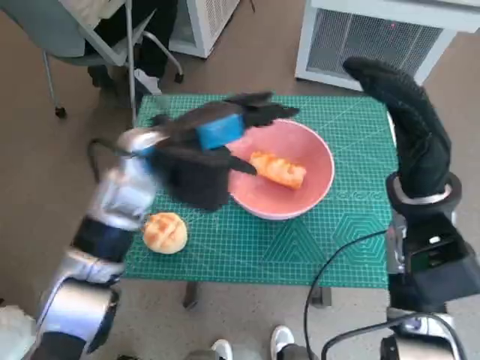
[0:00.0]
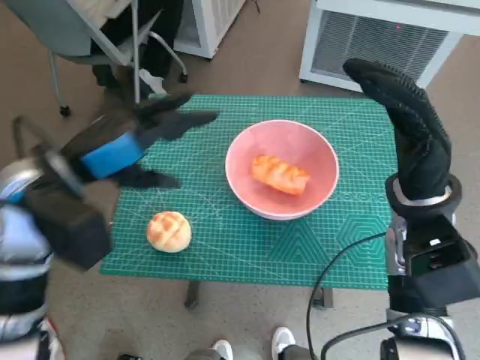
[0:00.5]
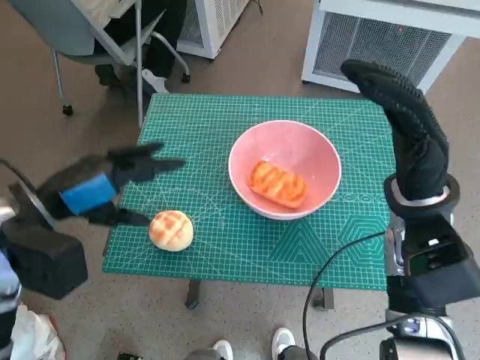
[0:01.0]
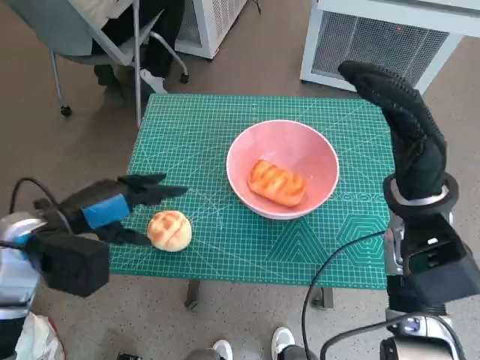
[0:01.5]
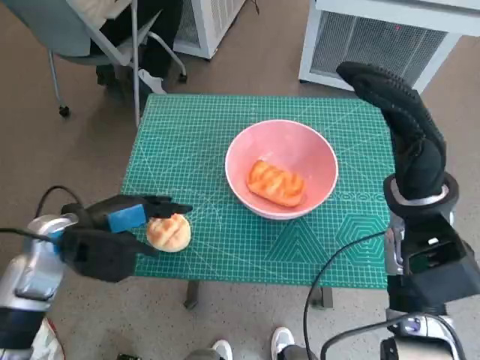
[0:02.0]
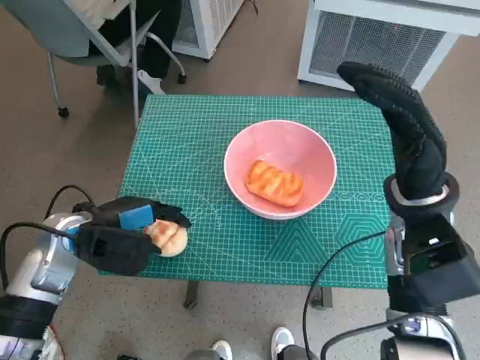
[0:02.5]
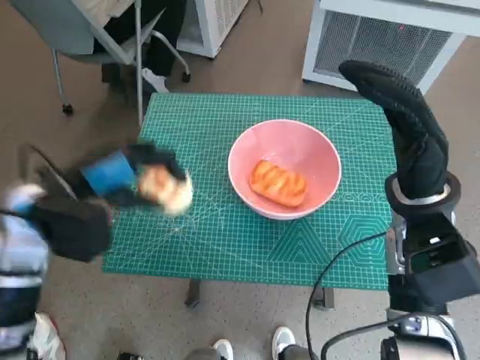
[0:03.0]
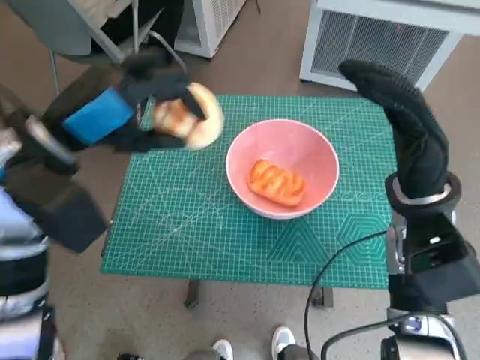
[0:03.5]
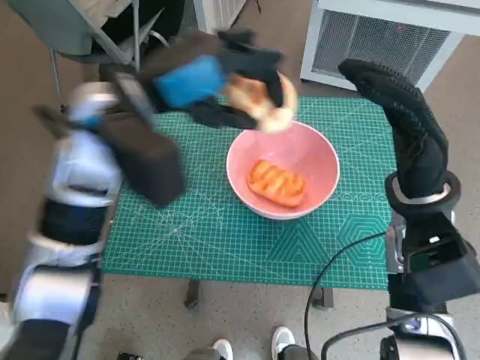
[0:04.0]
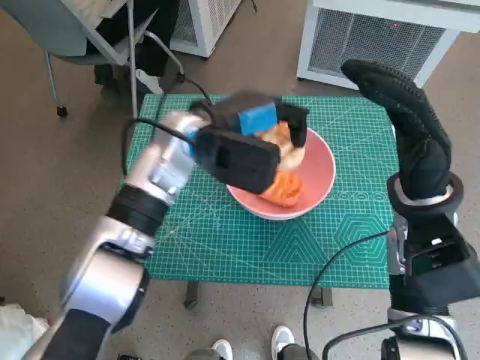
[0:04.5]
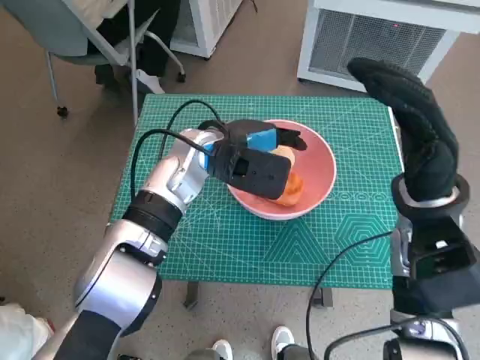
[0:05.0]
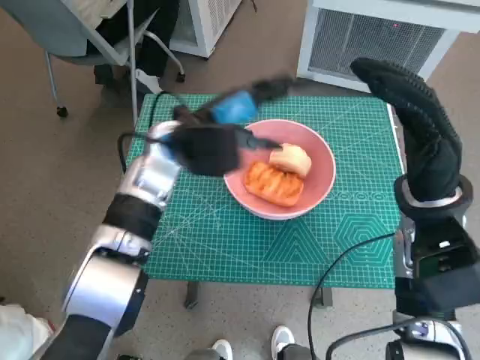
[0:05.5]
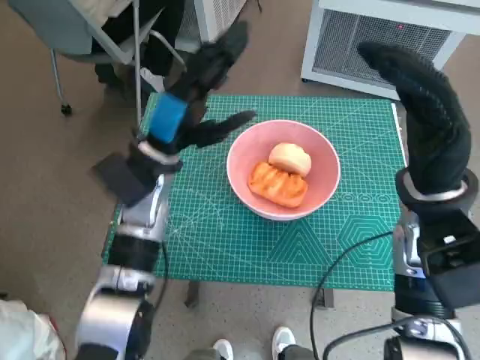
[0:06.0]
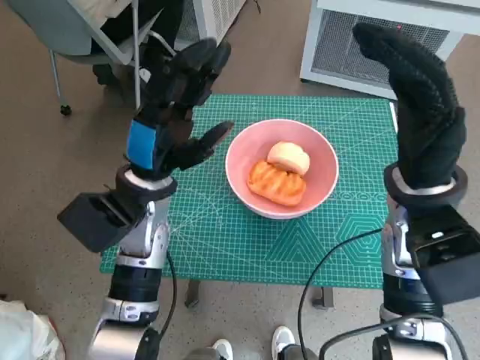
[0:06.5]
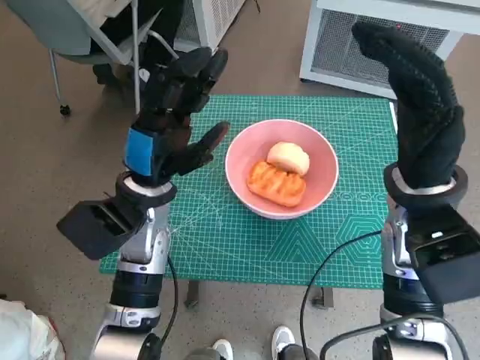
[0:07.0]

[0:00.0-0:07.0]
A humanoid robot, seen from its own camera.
Task of the whole recording: Push the bowl to the center of the table and put the bread into the bowl.
Step, 0:00.0 to 0:02.5: Grasp the round bread with left hand.
Step, 0:03.0 to 0:05.0: Place the round bread in pink bowl with left hand.
0:00.0 to 0:02.0: The left hand goes some 15 cm to the left, backward and downward.
0:02.0 to 0:03.5: The left hand moves upward, roughly 15 cm.
0:03.5 to 0:05.0: The left hand moves to the right, forward and downward, some 20 cm.
0:05.0 to 0:07.0: The left hand heads to the left and backward, covering some 10 cm.

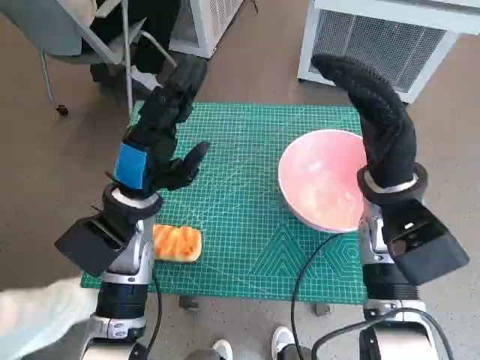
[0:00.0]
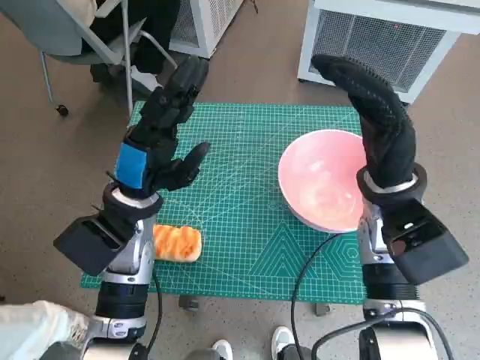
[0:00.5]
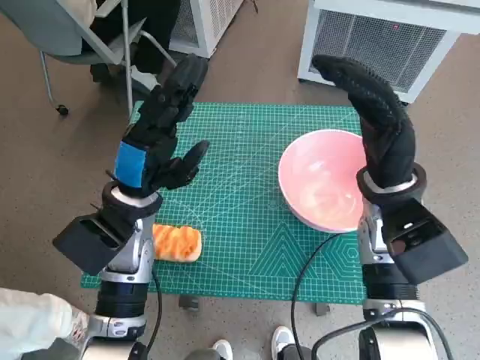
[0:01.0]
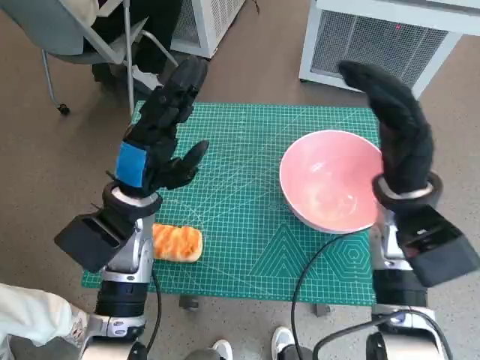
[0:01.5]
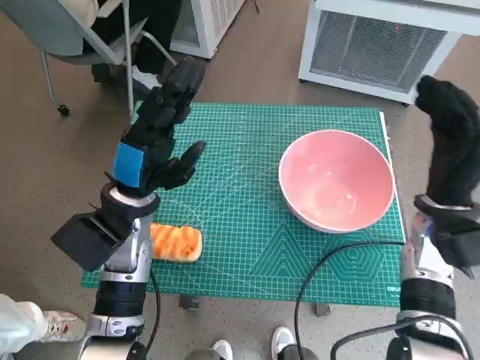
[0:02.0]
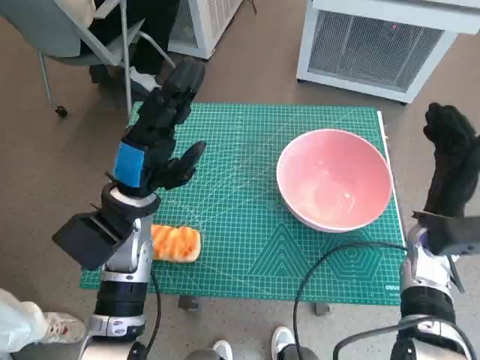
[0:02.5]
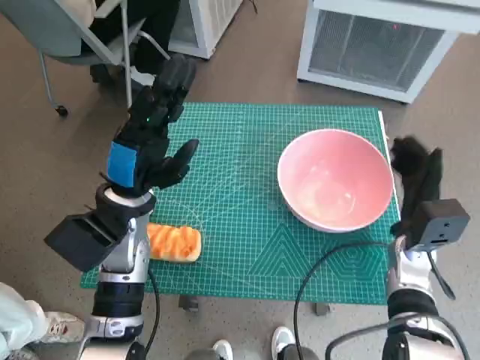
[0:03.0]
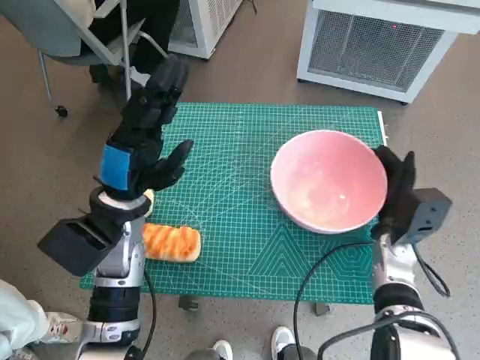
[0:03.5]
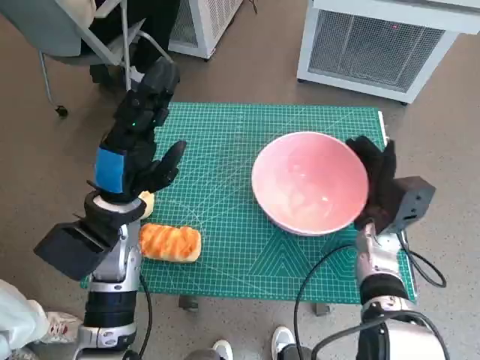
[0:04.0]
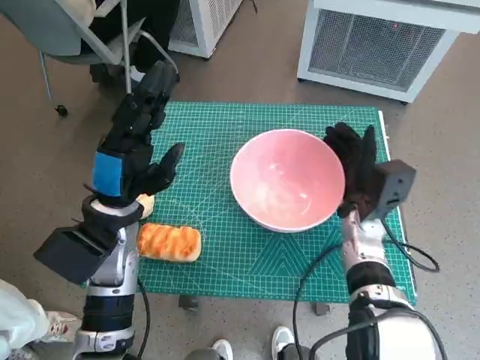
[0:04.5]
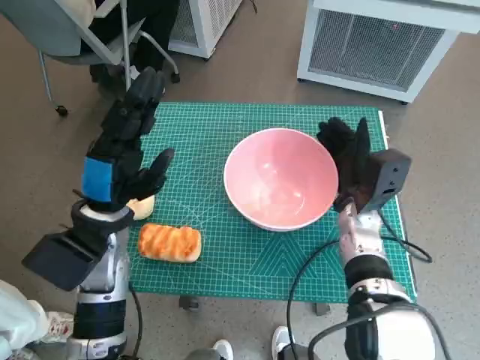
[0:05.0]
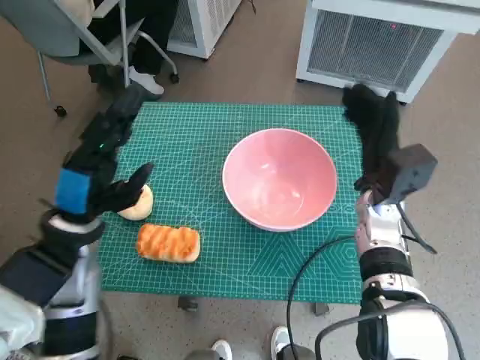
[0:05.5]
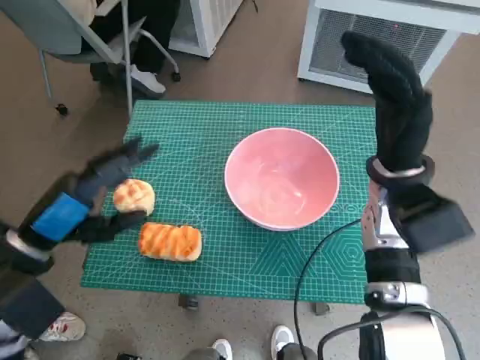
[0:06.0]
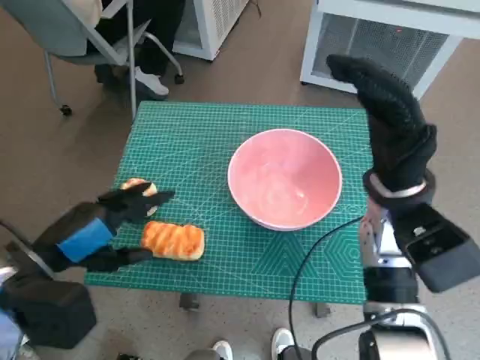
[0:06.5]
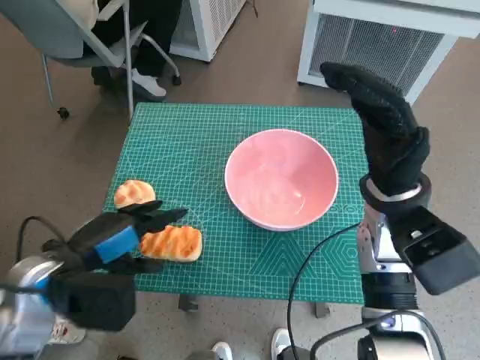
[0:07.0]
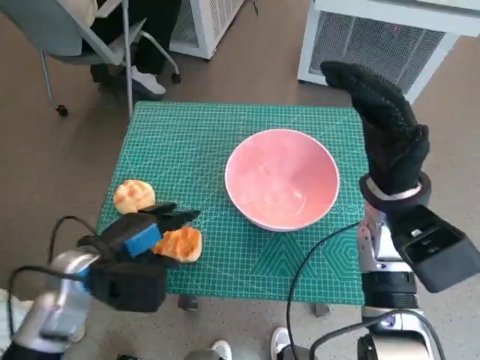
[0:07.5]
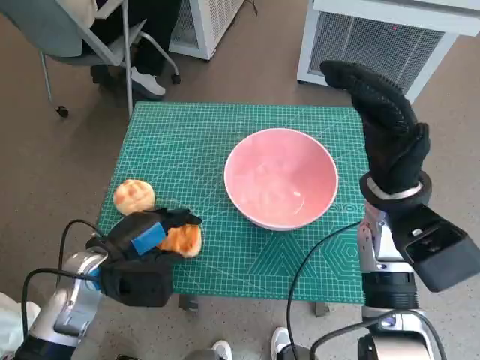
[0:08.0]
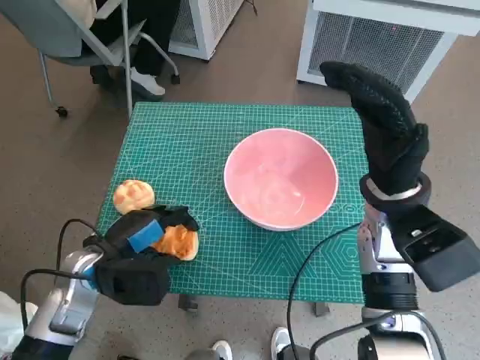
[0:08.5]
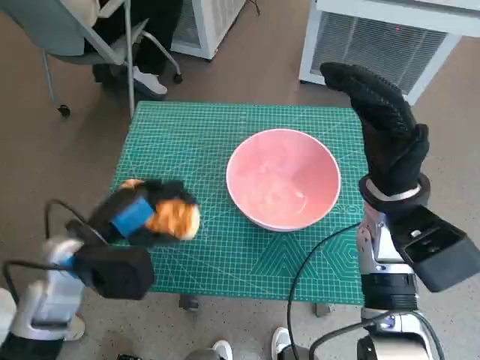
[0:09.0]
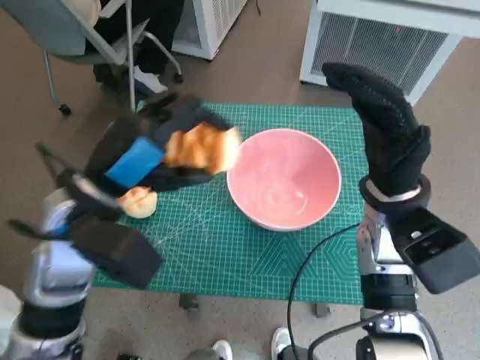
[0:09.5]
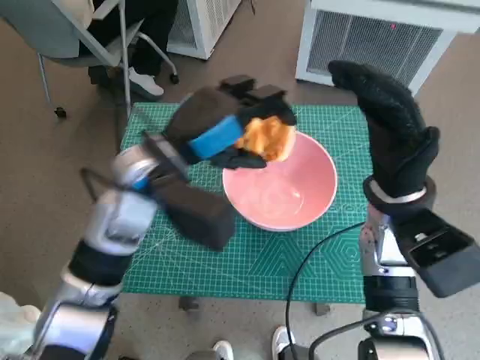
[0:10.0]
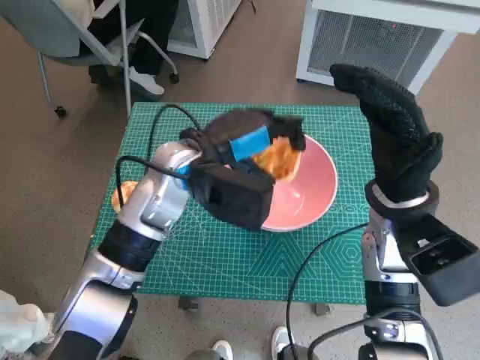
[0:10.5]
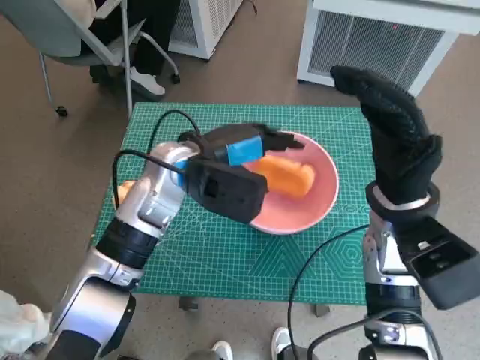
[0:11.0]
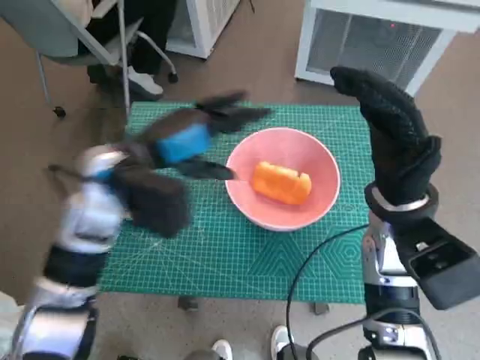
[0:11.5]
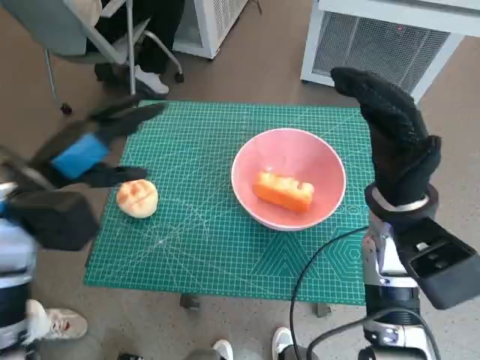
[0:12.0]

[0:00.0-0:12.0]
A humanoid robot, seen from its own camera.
Task of the whole recording: Push the bowl to the center of the table and put the bread into the bowl.
Step, 0:00.0 to 0:05.0: Move the pink bowl to the center of table with right hand.
Step, 0:05.5 to 0:08.0: Grasp the long bread with left hand.
Step, 0:08.5 to 0:11.0: Place the long bread in pink bowl with left hand.
0:02.0 to 0:04.0: The right hand moves downward, some 10 cm.
0:04.0 to 0:06.0: The right hand shifts about 15 cm upward. Meanwhile the left hand is displaced to the left and backward by some 10 cm.
0:06.0 to 0:08.0: The left hand travels downward by roughly 10 cm.
0:08.0 to 0:10.0: The left hand moves upward, to the right and forward, approximately 20 cm.
0:10.0 to 0:12.0: The left hand shifts about 15 cm to the left.

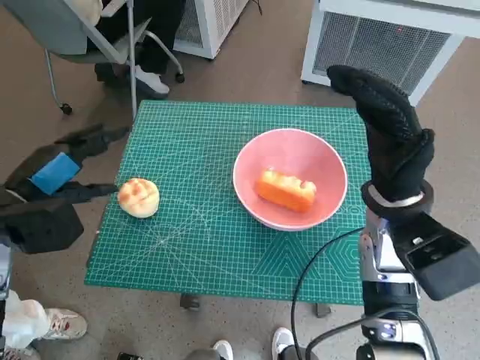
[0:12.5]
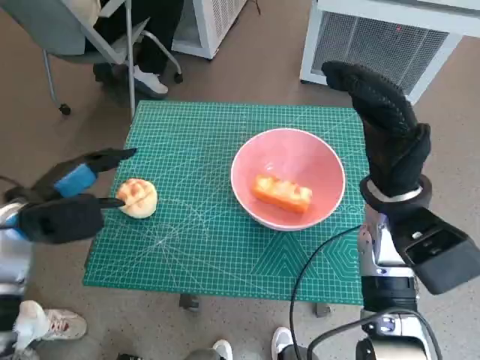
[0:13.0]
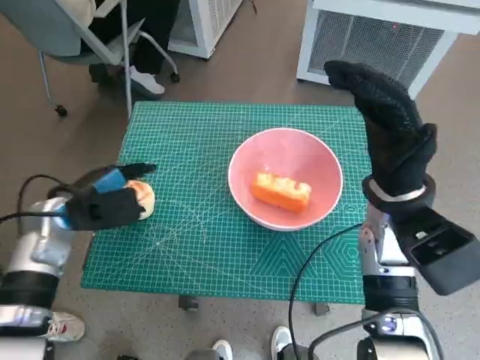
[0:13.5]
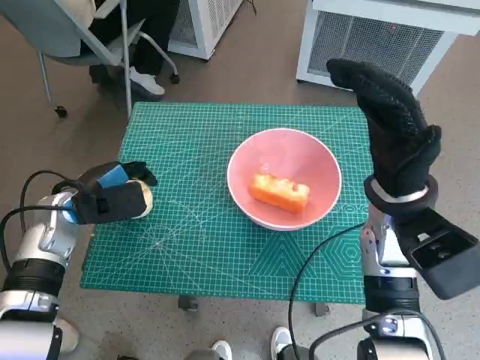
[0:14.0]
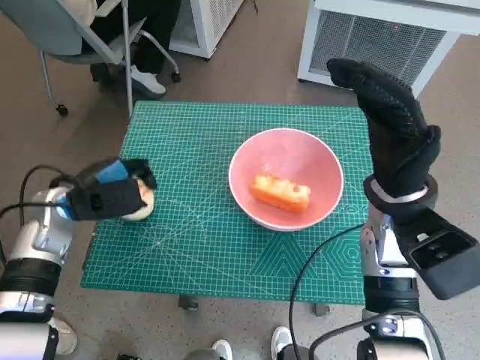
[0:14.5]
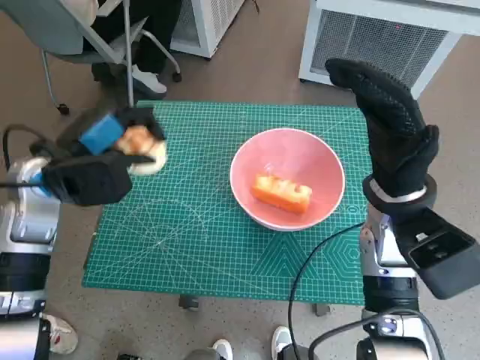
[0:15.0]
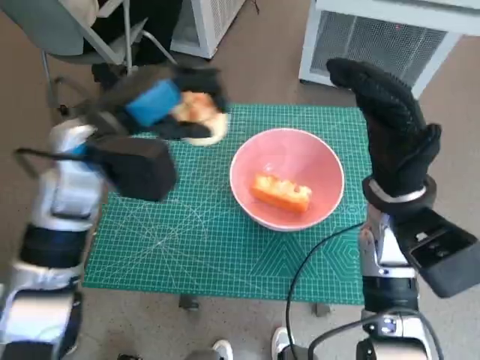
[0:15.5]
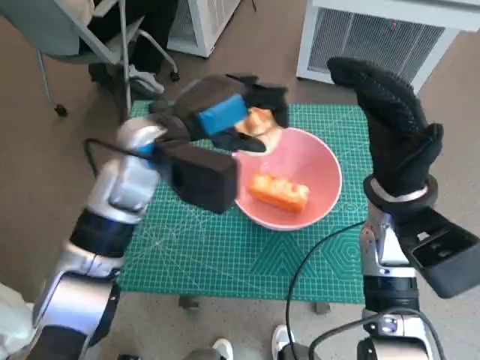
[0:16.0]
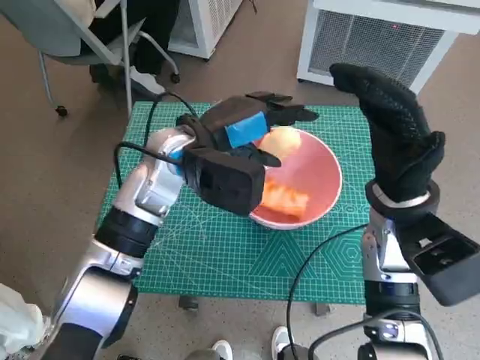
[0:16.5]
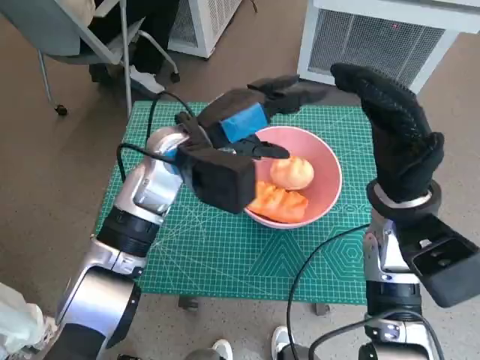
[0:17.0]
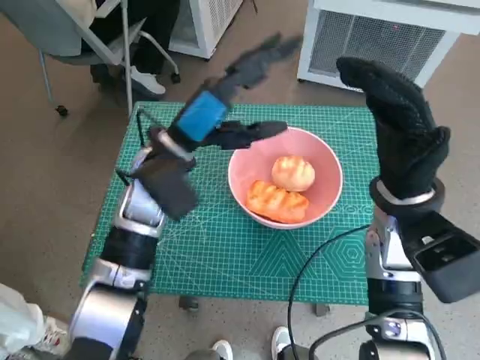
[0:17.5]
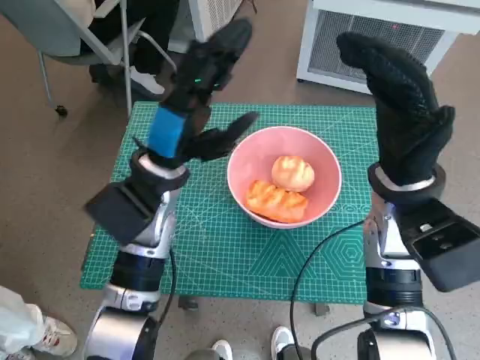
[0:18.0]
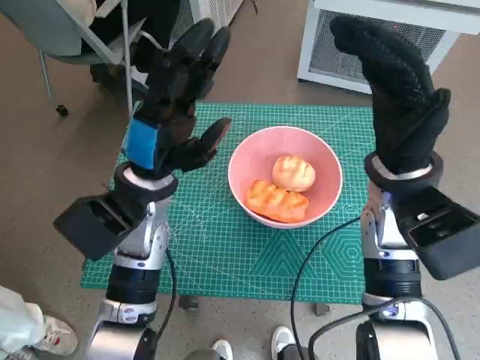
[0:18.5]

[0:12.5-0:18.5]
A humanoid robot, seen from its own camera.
Task of the whole recording: Push the bowl to the center of the table and put the bread into the bowl.
Step, 0:12.5 to 0:14.0: Grasp the round bread with left hand.
Step, 0:14.5 to 0:16.5: Place the round bread in pink bowl with left hand.
0:12.5 to 0:14.5: The left hand travels downward and forward by approximately 10 cm.
0:14.5 to 0:16.5: The left hand goes about 20 cm to the right and upward.
0:16.5 to 0:18.5: The left hand ends up about 5 cm from where it was.
